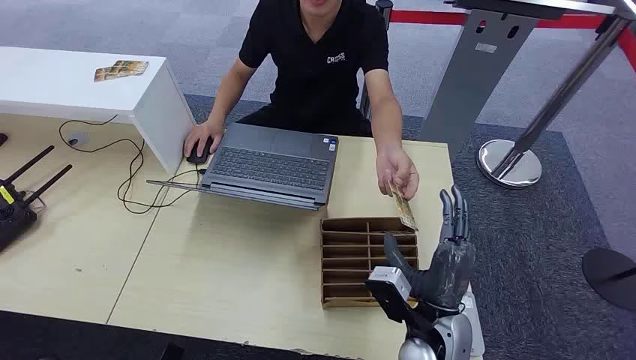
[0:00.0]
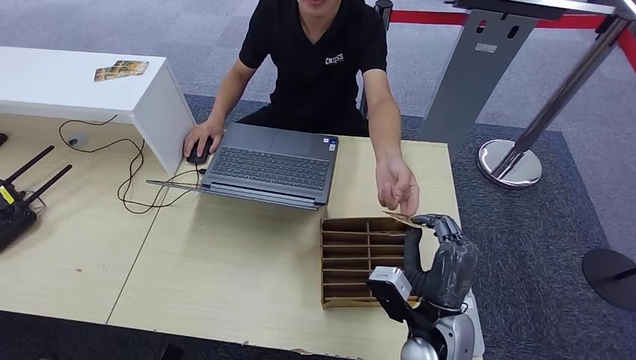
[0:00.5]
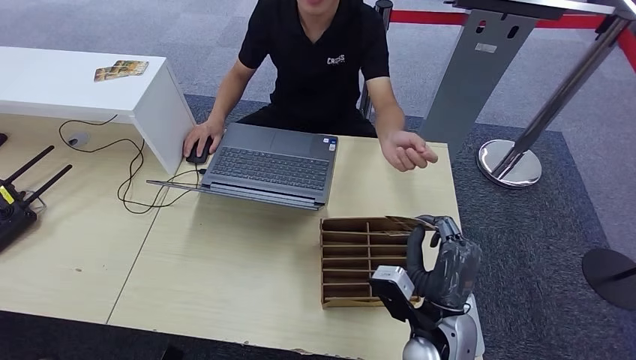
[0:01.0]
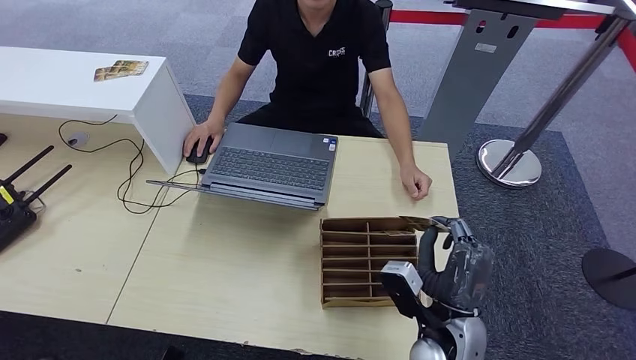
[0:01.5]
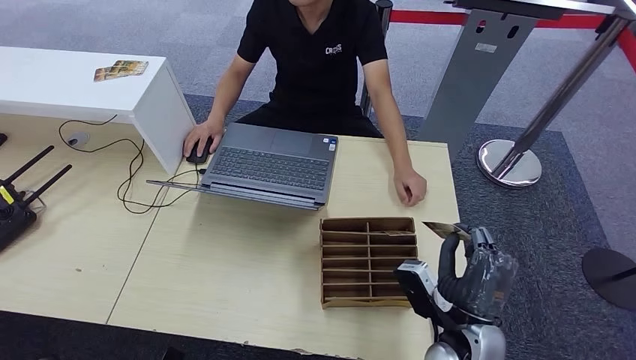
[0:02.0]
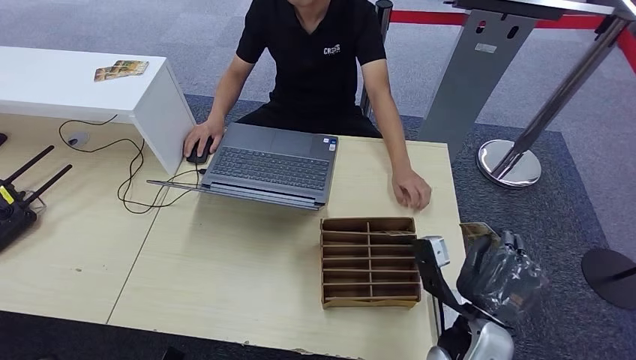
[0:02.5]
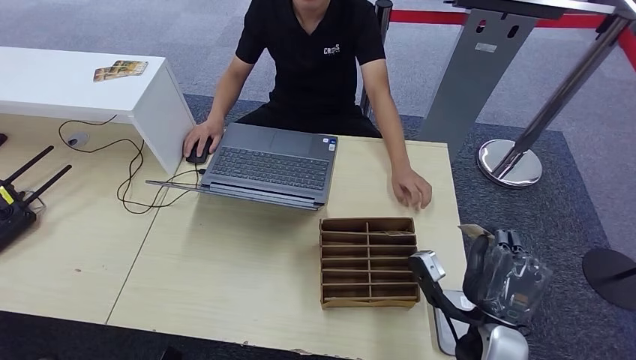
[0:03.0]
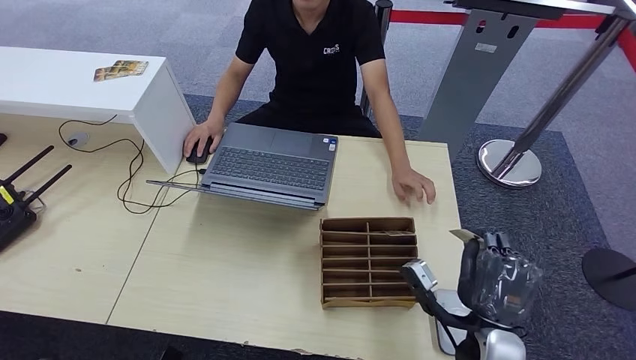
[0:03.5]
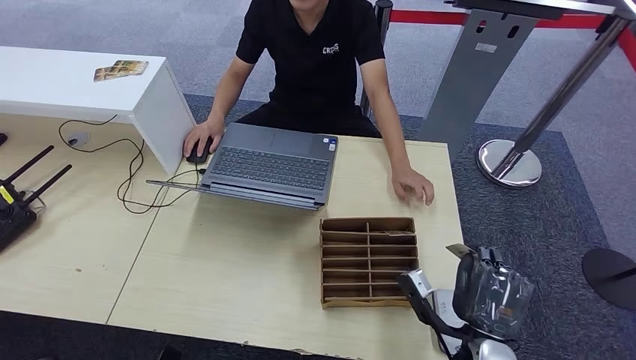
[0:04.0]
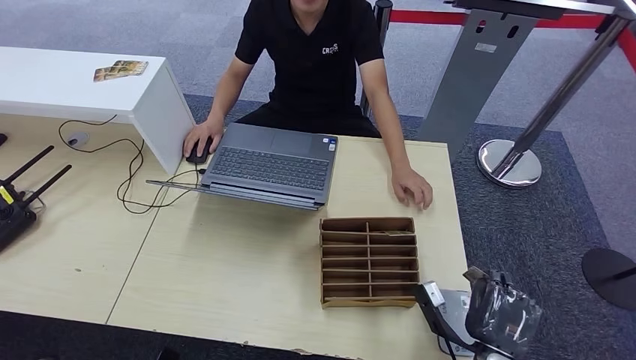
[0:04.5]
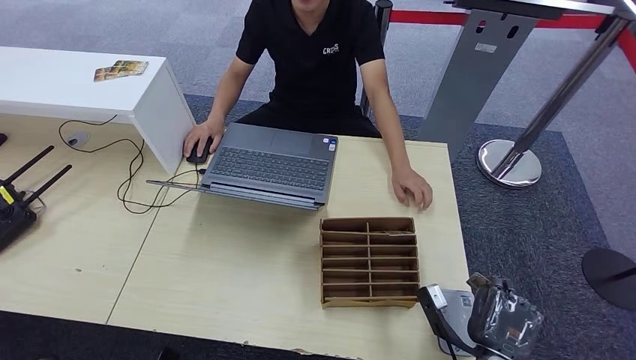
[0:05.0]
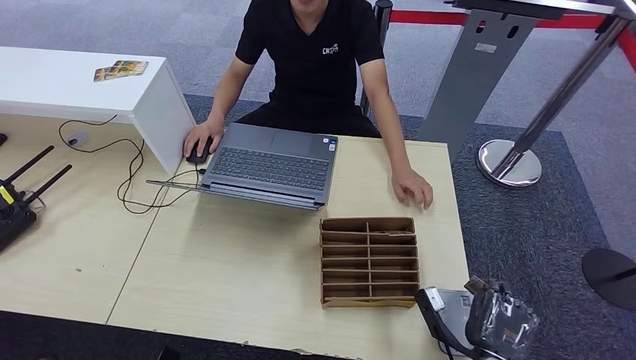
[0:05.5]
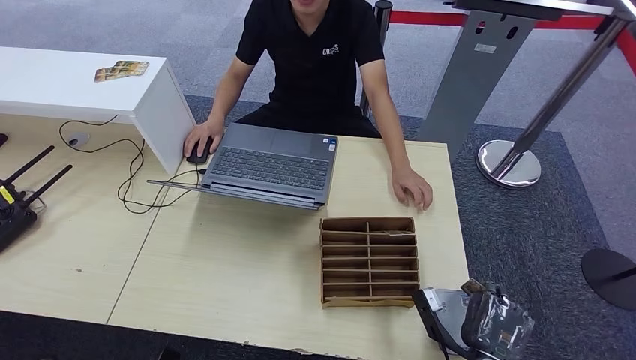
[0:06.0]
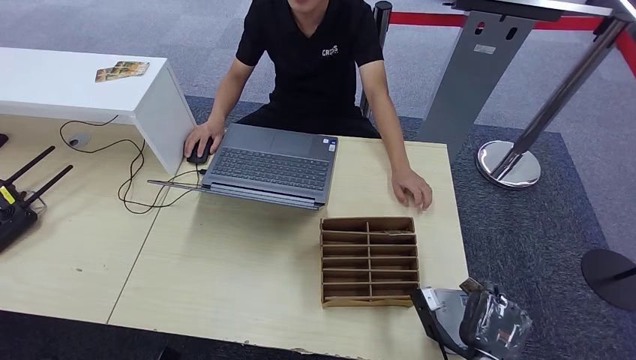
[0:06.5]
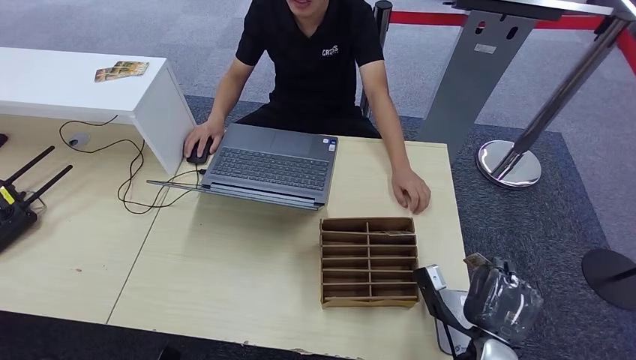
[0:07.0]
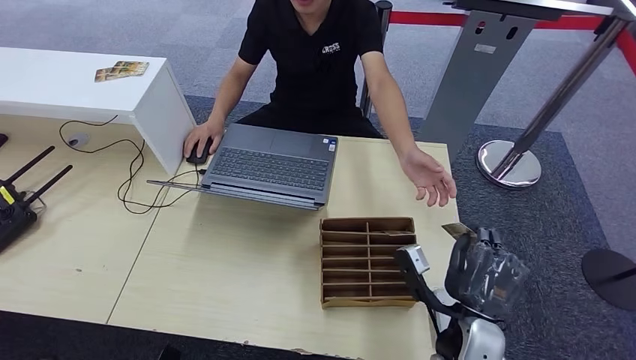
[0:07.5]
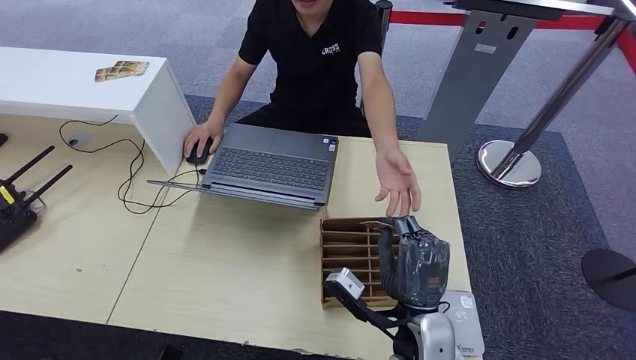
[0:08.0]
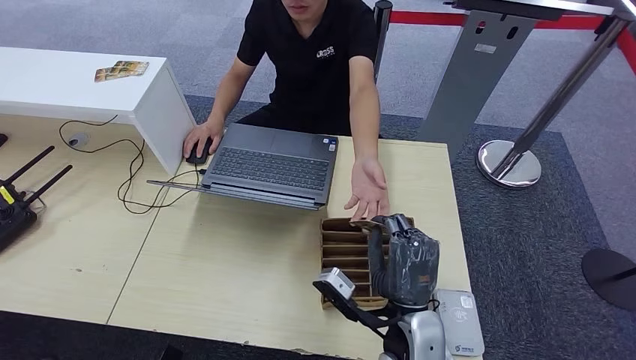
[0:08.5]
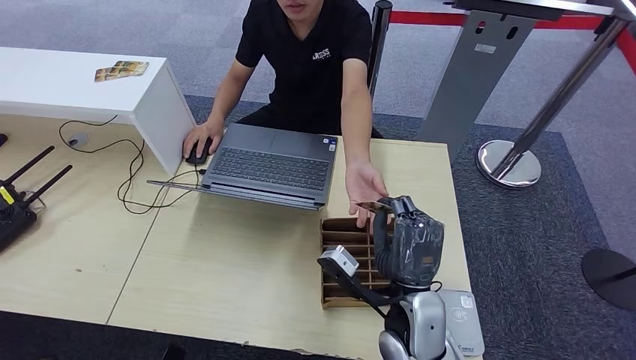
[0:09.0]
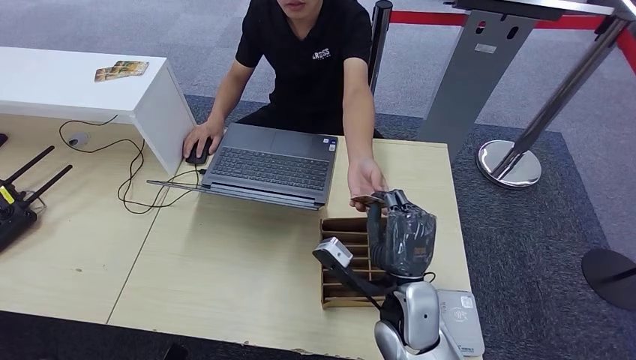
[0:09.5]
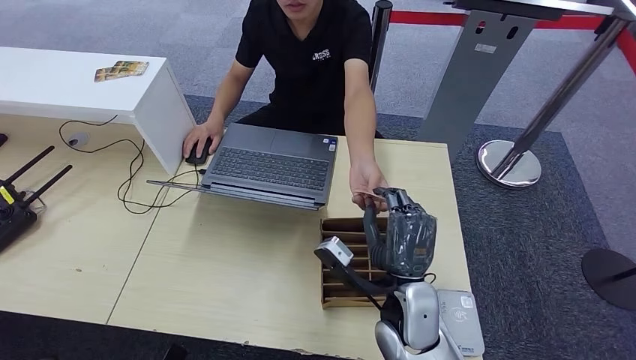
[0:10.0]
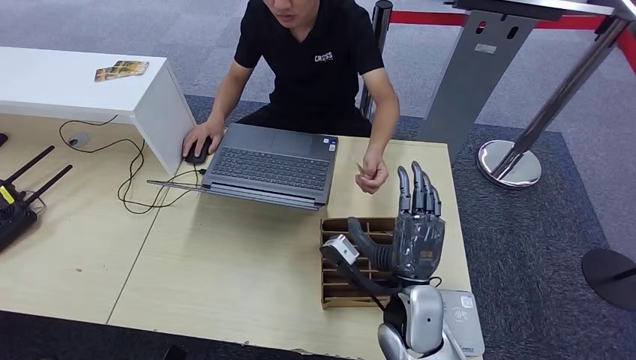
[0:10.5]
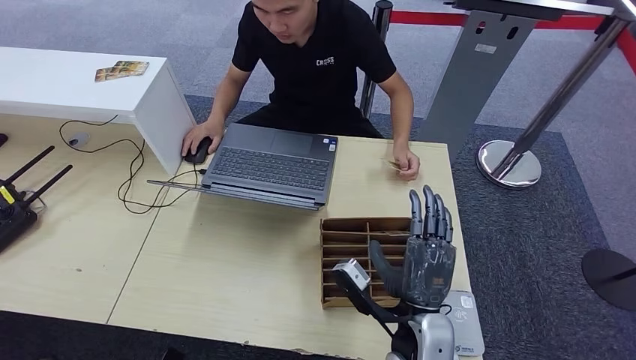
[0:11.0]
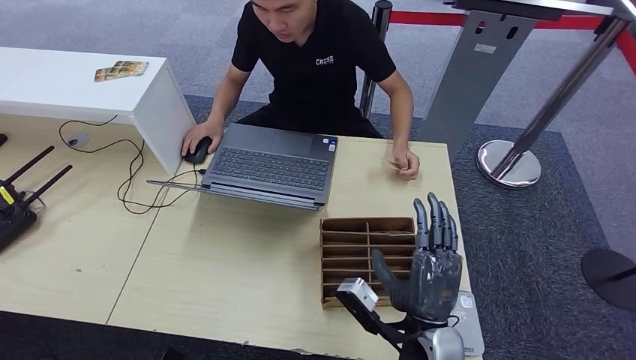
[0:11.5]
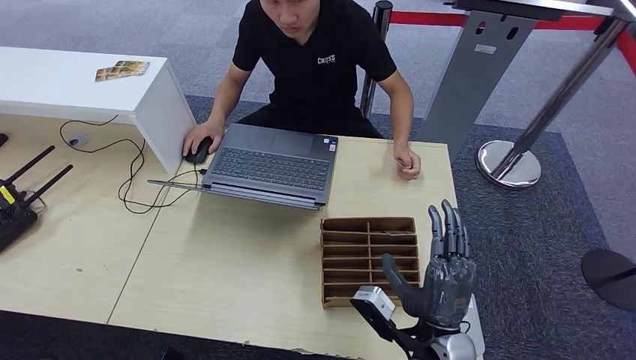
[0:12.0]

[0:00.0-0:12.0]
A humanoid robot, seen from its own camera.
Step, 0:00.0 to 0:00.5: Take the ID card from the person's hand.
Step, 0:01.0 to 0:05.5: Place the ID card on the card reader.
Step, 0:06.0 to 0:10.5: Hand the ID card to the person.
0:04.0 to 0:06.0: The right hand travels downward by some 5 cm.
0:06.0 to 0:08.0: The right hand heads to the left, upward and forward, covering about 15 cm.
0:08.0 to 0:10.0: The hands stay close to where they were, moving slightly.
0:10.0 to 0:12.0: The right hand travels backward by approximately 5 cm.

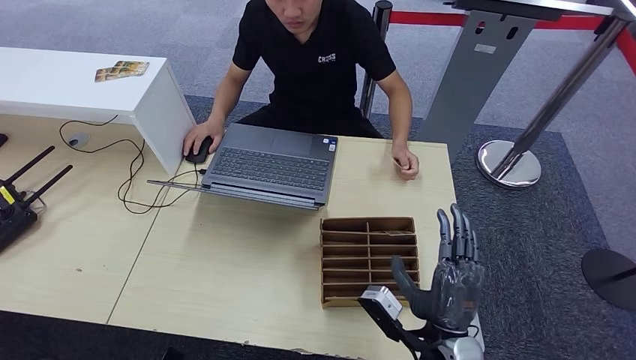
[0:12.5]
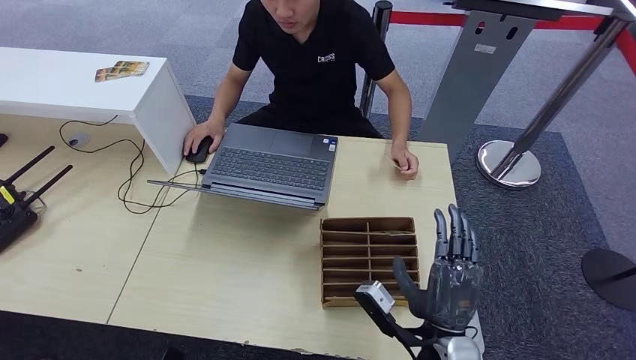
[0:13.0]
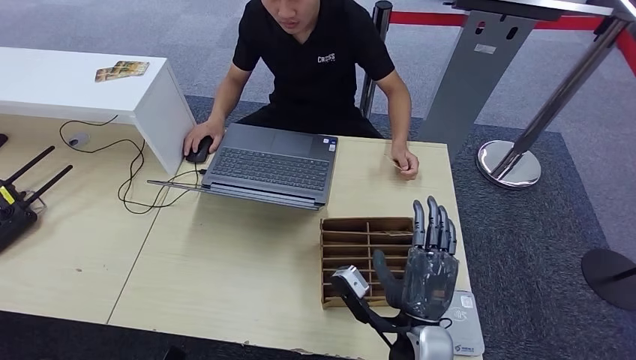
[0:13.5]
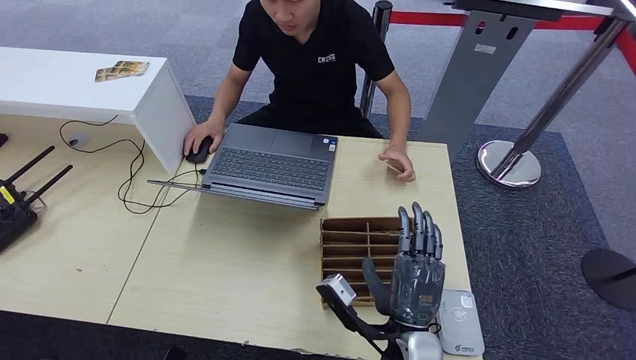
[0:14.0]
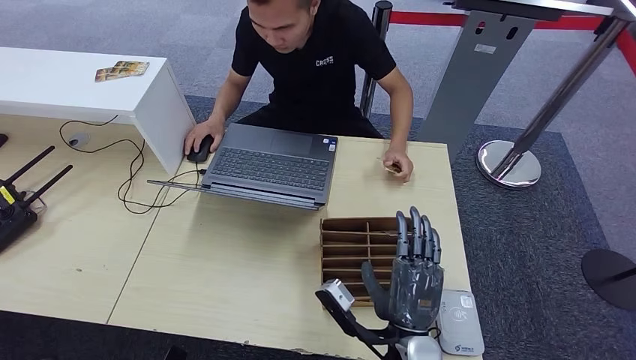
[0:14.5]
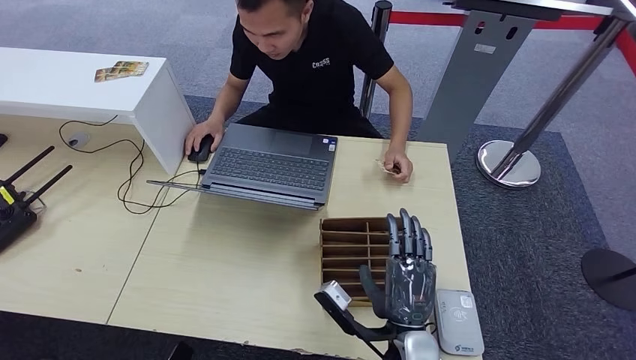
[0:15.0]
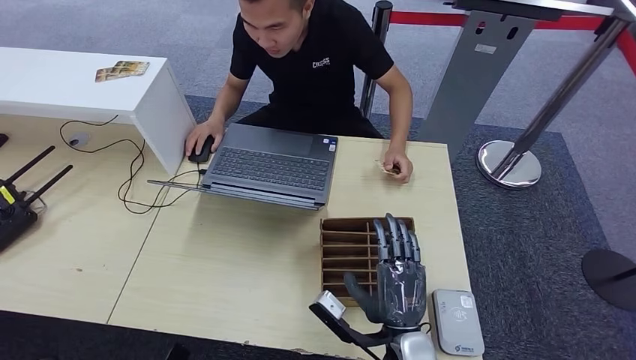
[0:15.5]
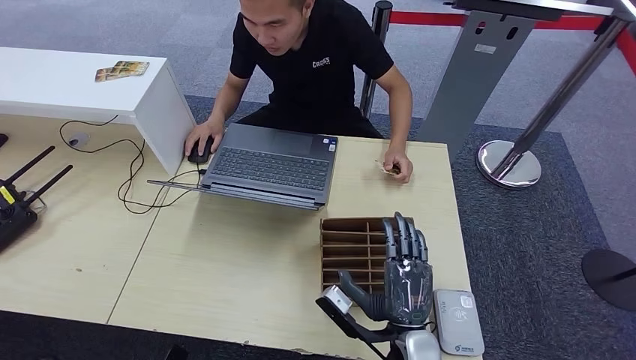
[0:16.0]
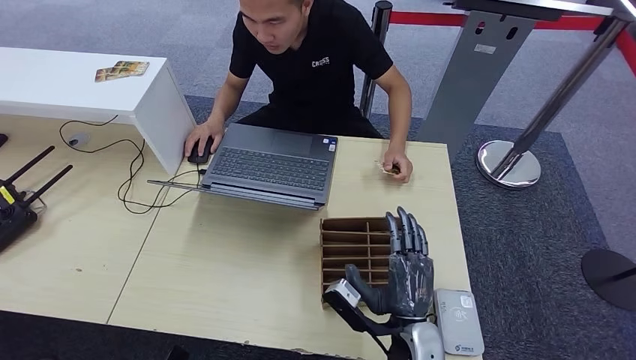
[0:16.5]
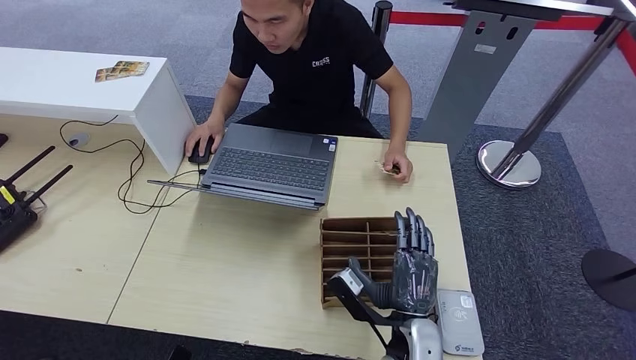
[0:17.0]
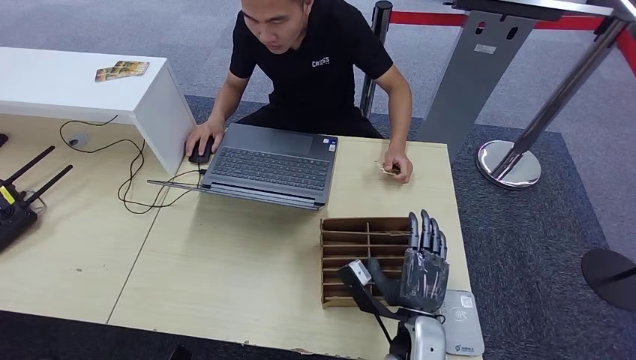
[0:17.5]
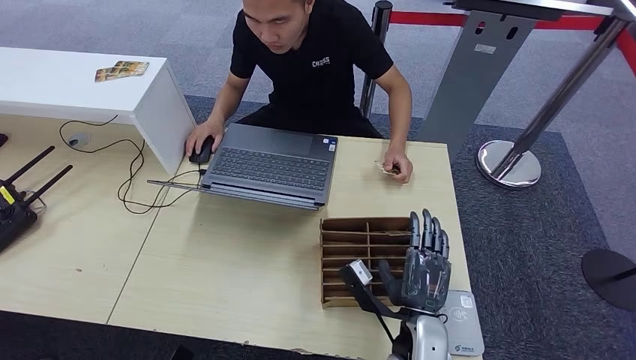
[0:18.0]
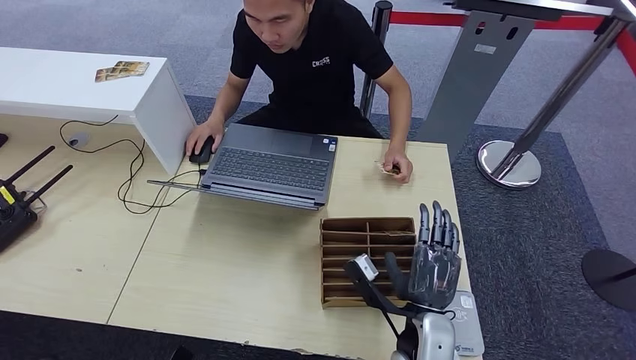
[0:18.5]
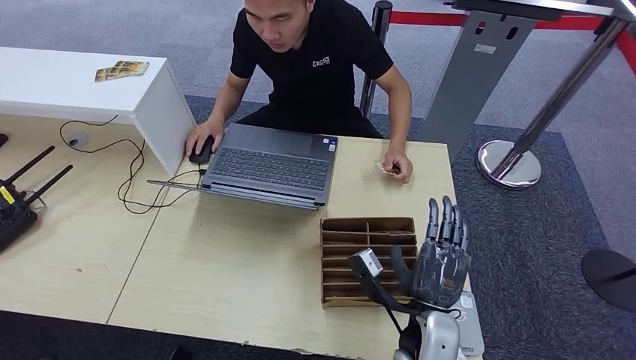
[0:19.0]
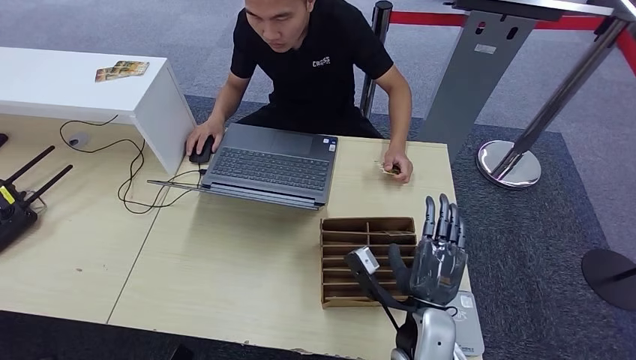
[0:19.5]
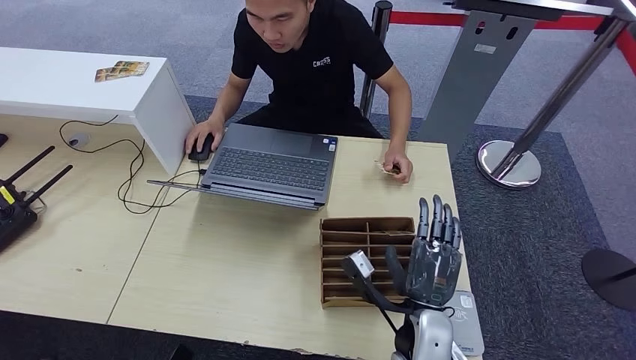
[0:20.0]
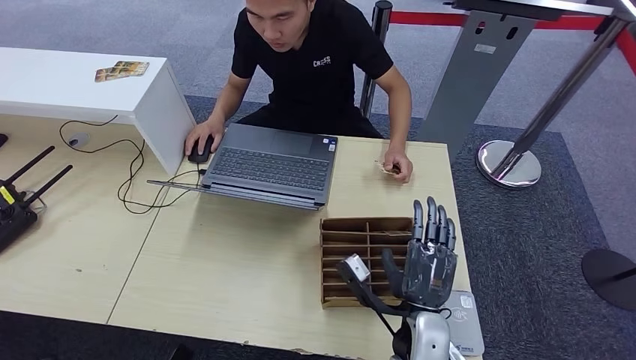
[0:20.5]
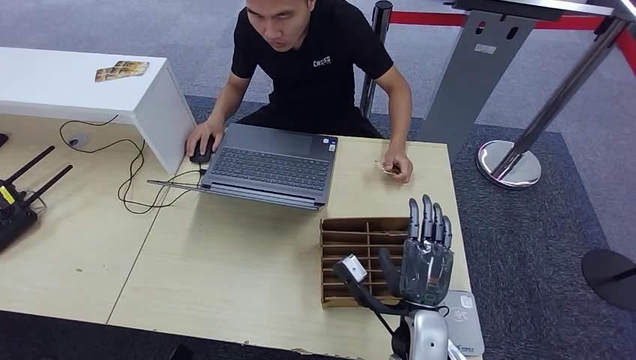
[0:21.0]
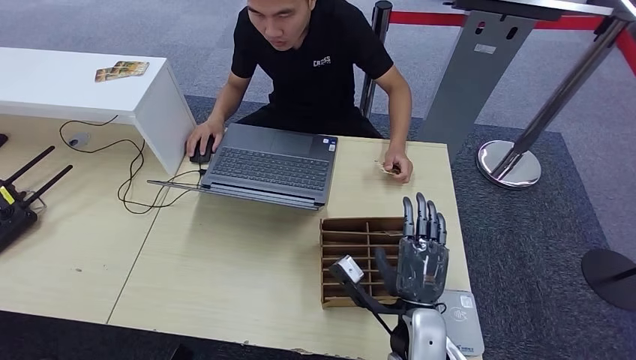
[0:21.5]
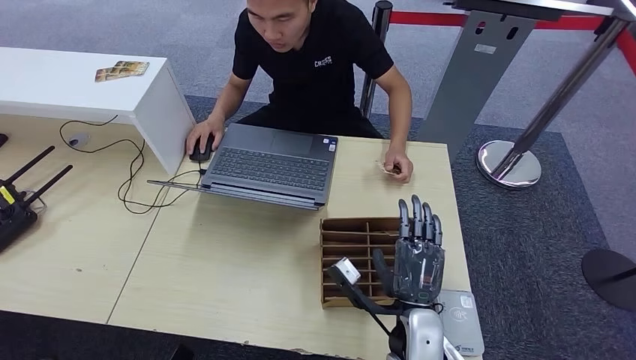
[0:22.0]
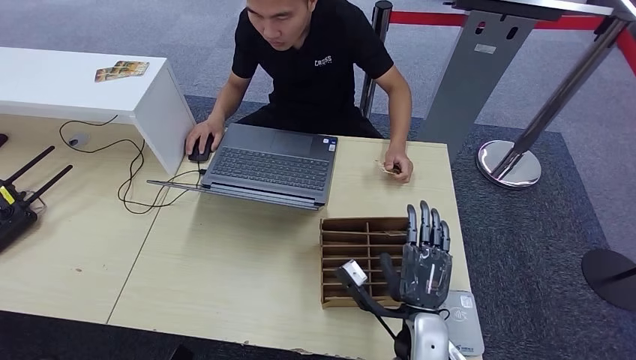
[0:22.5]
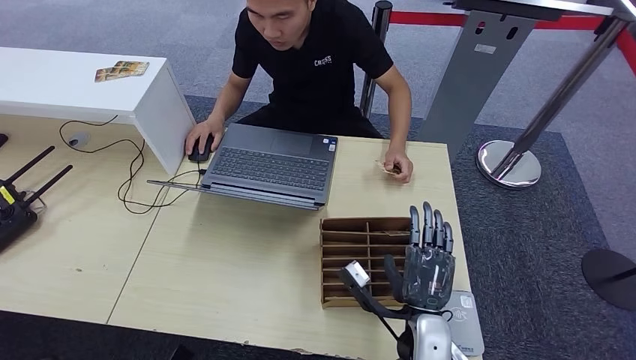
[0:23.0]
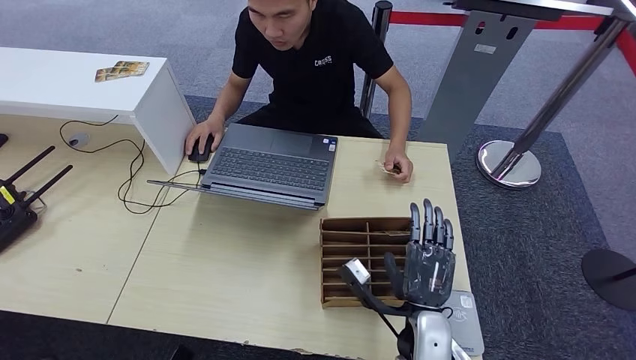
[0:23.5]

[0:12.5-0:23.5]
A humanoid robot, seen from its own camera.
0:12.5 to 0:14.5: The right hand goes some 5 cm to the left.
0:14.5 to 0:21.5: There are only small adjustments of the hands.
0:21.5 to 0:23.5: The hands make only small movements.
